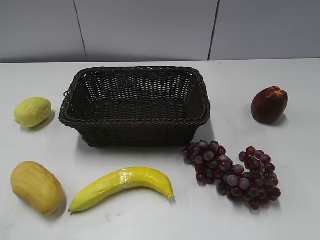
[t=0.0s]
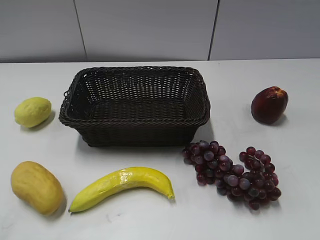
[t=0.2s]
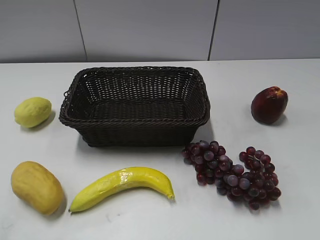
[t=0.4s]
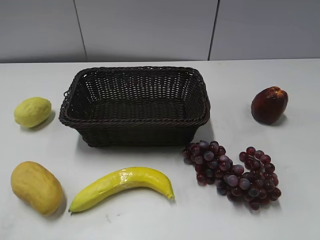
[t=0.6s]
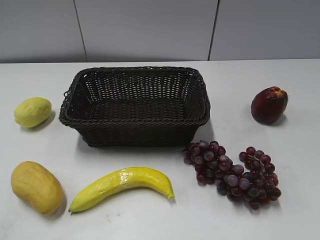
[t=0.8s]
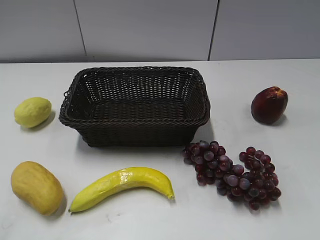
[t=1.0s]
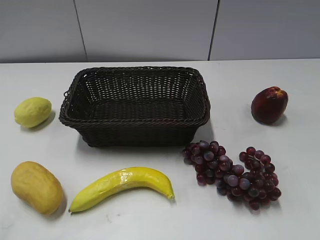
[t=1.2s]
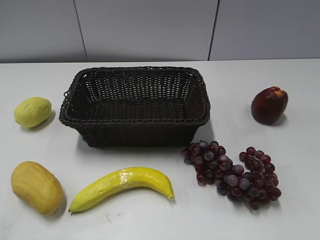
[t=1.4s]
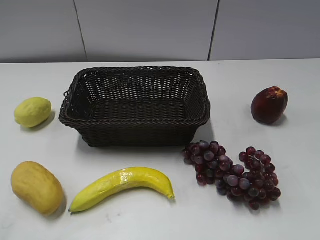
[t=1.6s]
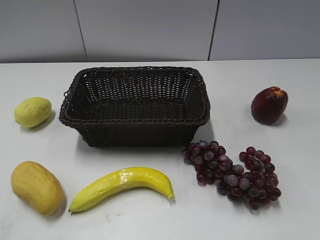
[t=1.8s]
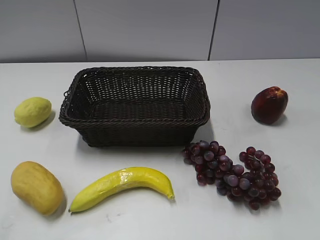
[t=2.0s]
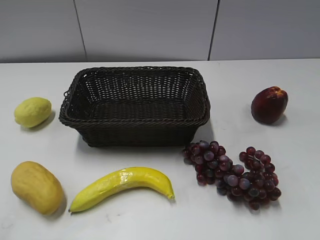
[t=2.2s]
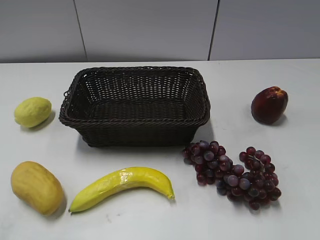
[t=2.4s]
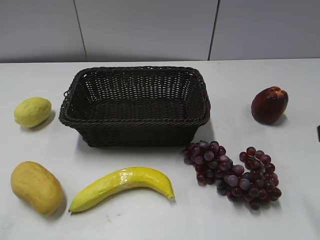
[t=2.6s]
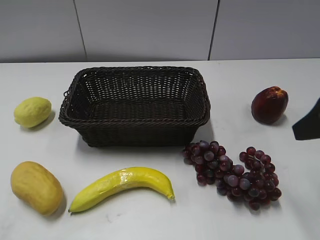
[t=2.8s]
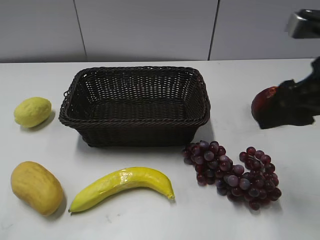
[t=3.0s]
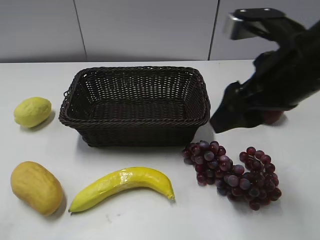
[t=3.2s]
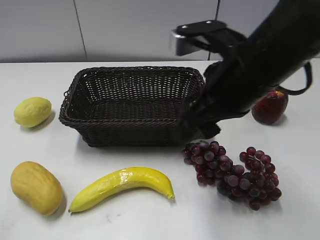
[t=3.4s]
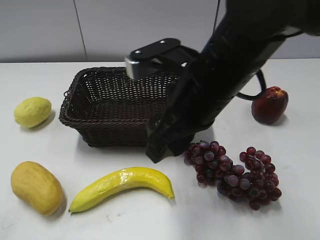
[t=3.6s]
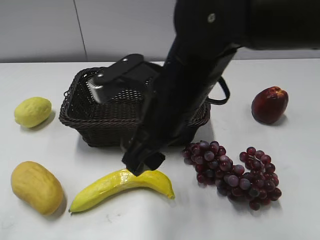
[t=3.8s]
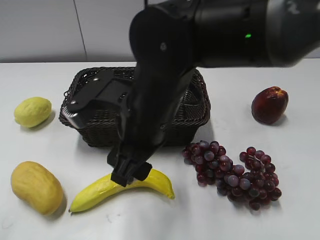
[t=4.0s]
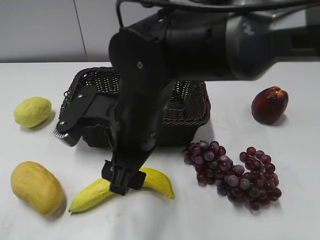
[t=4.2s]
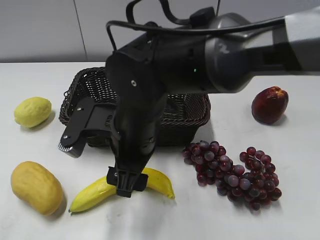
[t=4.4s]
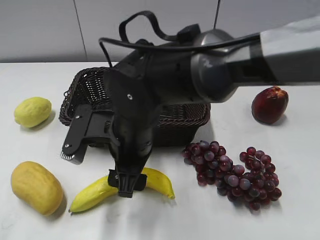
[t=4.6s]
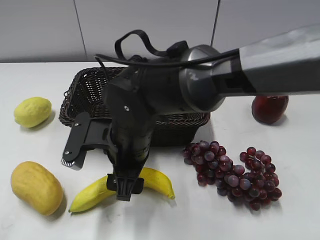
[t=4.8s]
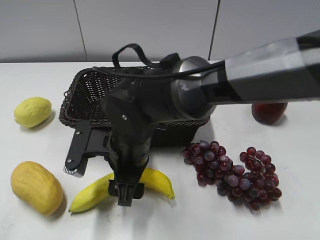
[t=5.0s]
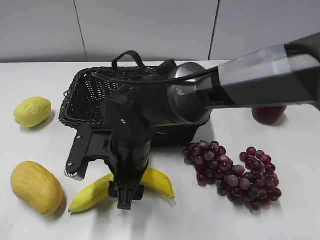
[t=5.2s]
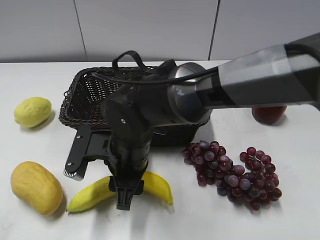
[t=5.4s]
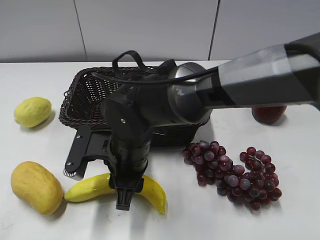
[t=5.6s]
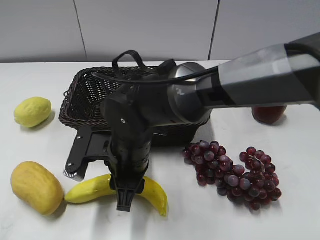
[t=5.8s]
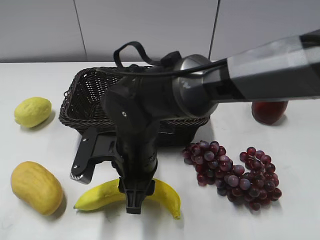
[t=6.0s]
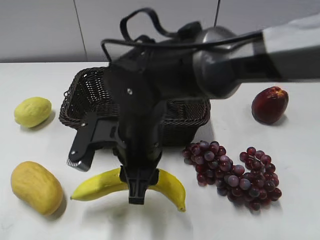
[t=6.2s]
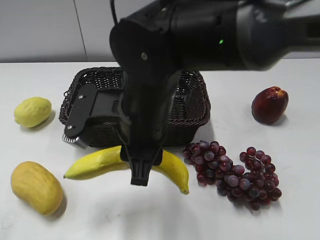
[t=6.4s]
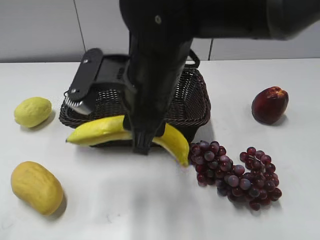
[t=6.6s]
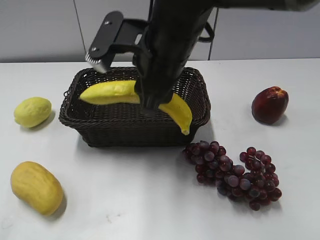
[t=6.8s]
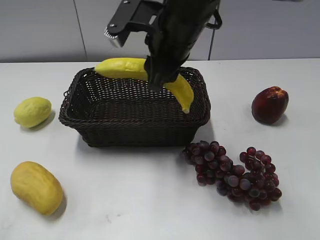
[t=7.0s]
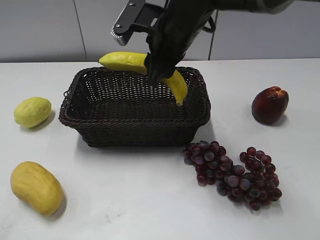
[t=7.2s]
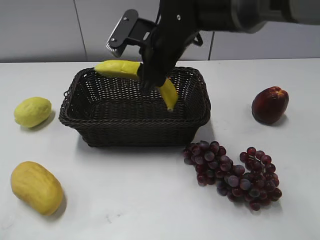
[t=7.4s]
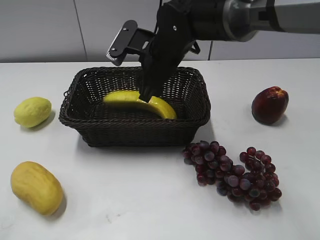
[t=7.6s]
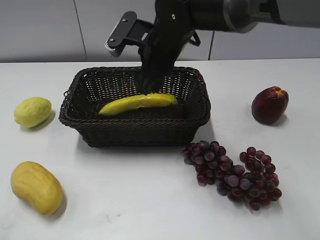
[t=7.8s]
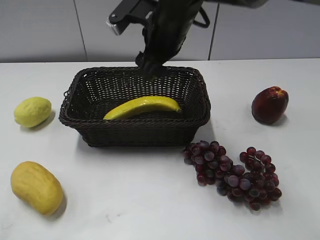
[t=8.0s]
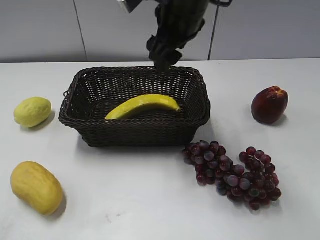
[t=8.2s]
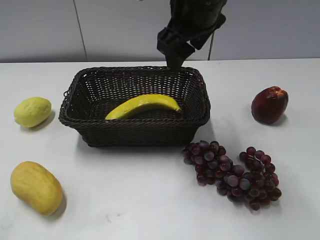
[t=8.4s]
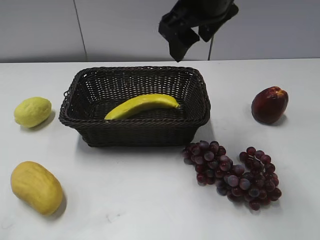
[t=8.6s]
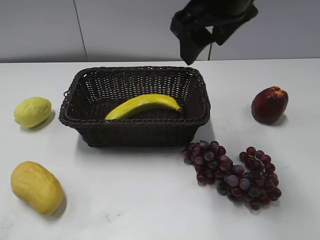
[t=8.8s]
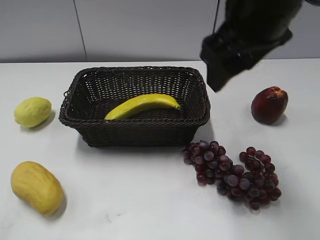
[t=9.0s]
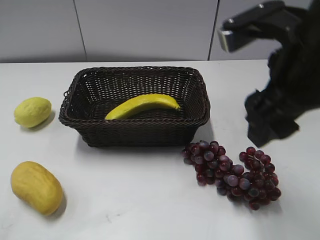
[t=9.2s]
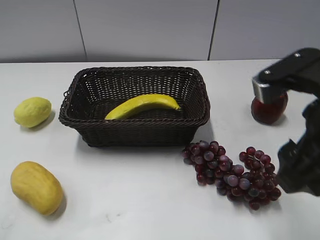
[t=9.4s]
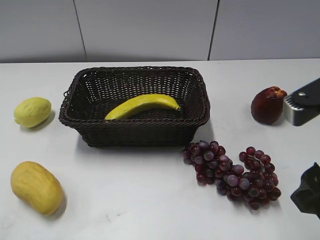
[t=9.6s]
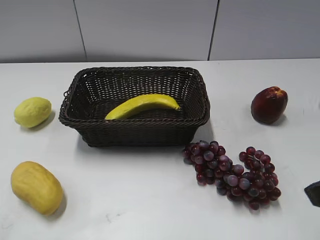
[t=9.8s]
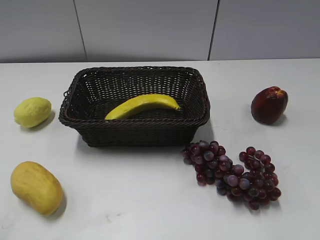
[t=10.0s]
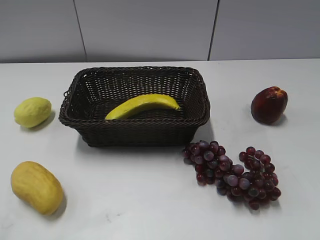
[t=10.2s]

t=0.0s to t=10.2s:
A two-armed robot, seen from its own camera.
Step, t=2.6s to t=5.4s: Grasp the banana with right gripper.
Step, t=5.6s to t=7.6s: Place the banana in the basket with right gripper.
t=1.4s to t=3.0s: The right gripper is displaced forward and to the left by some 25 cm.
t=3.0s to t=4.4s: The right gripper is displaced to the left and downward by approximately 25 cm.
t=4.4s to t=5.8s: The right gripper is displaced downward by roughly 5 cm, and closes its fingers.
t=5.8s to t=7.2s: The right gripper is displaced forward, upward and to the right by approximately 20 cm.
t=7.2s to t=8.8s: The right gripper moves upward, backward and to the right, roughly 15 cm, and opens its fingers.
t=8.8s to t=10.2s: The right gripper travels to the right and backward by some 30 cm.

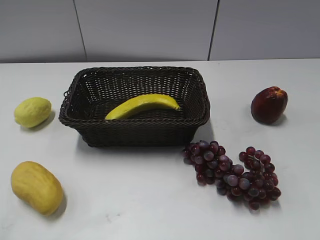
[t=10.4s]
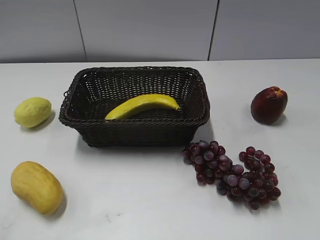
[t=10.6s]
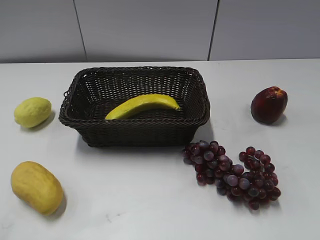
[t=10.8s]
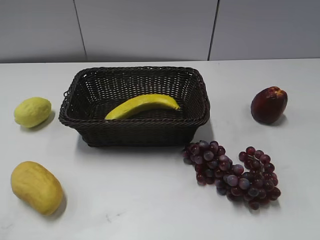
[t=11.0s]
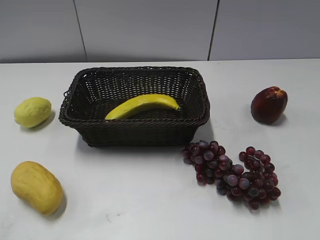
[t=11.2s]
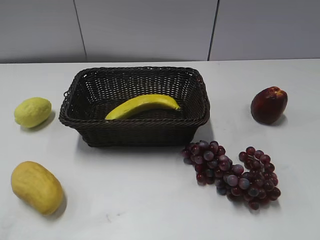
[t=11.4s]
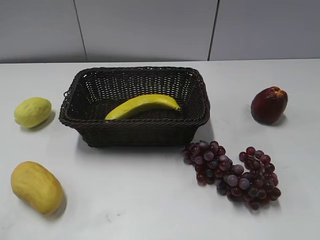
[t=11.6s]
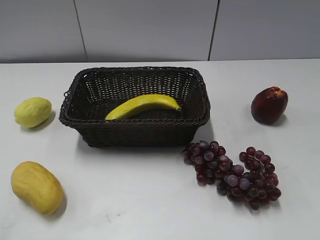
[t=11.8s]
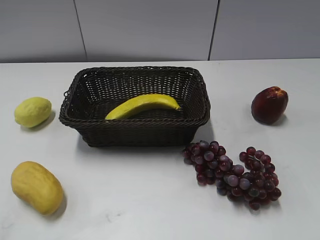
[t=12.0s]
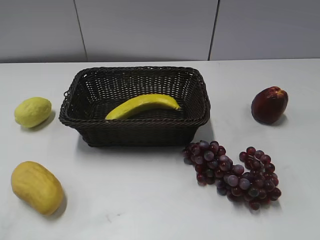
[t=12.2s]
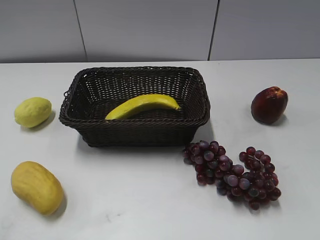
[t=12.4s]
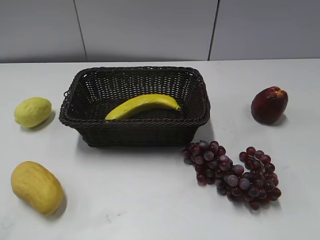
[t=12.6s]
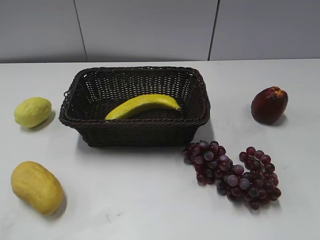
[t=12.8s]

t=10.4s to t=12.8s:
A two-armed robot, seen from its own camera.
t=11.6s to t=12.8s: The two grippers keep their place.
